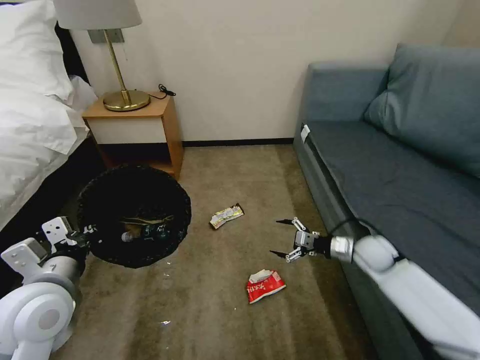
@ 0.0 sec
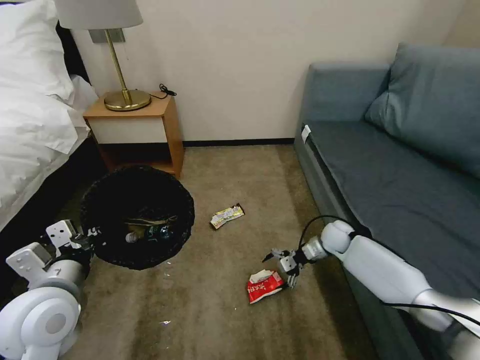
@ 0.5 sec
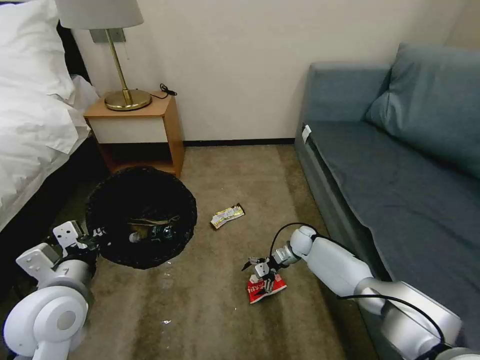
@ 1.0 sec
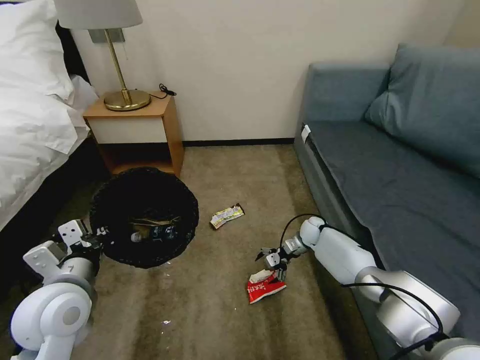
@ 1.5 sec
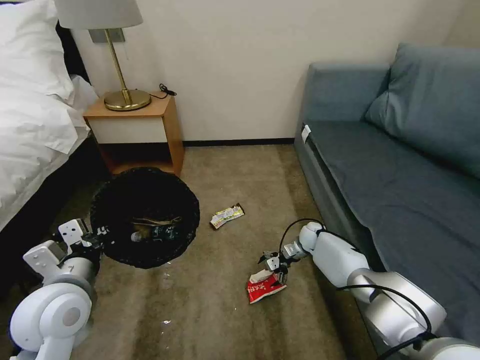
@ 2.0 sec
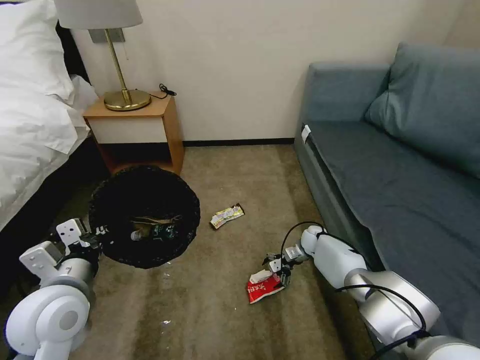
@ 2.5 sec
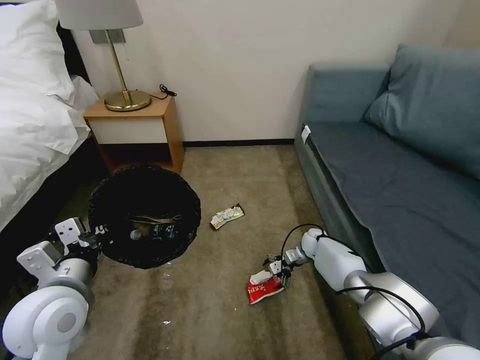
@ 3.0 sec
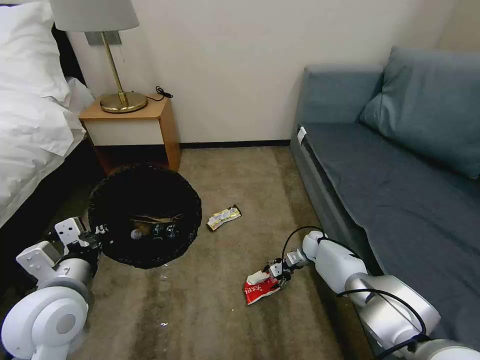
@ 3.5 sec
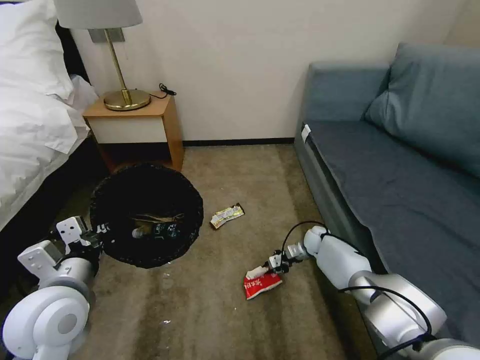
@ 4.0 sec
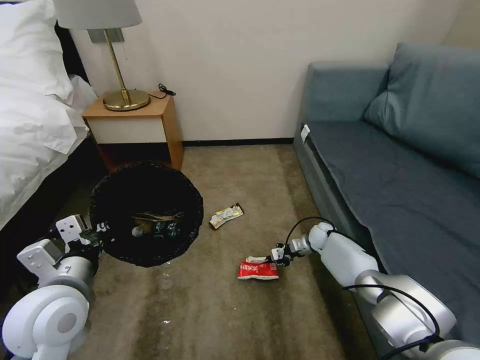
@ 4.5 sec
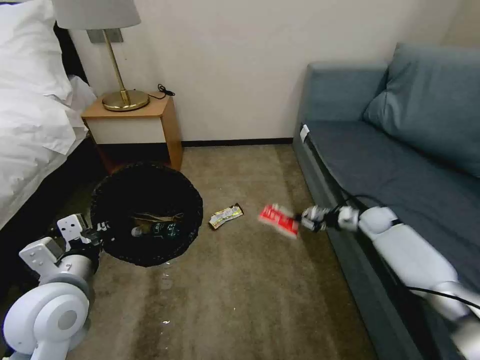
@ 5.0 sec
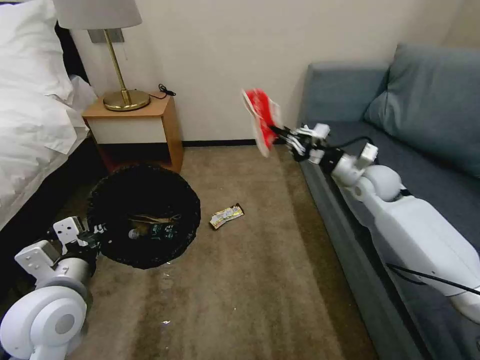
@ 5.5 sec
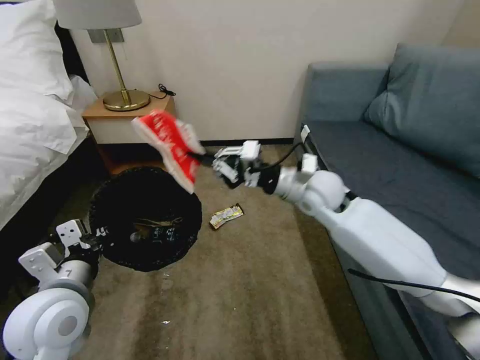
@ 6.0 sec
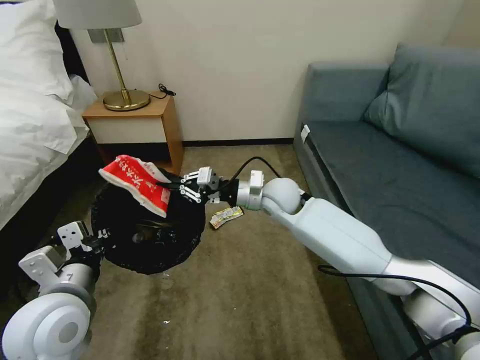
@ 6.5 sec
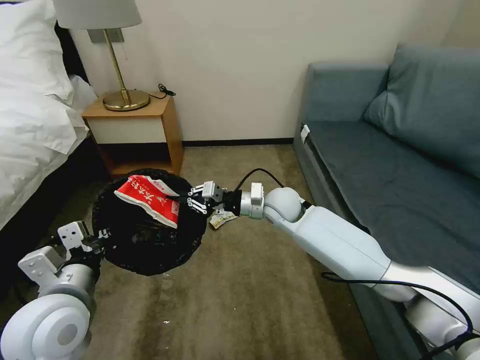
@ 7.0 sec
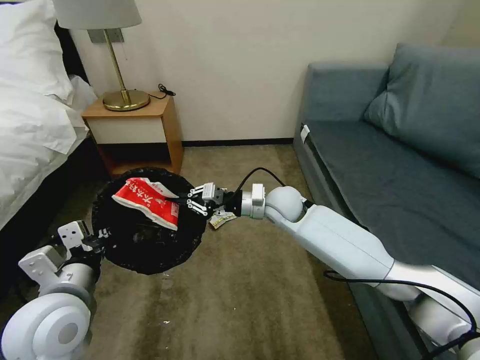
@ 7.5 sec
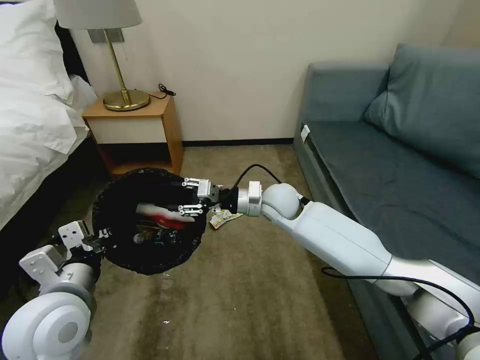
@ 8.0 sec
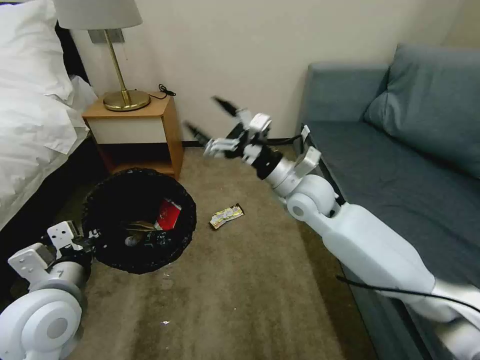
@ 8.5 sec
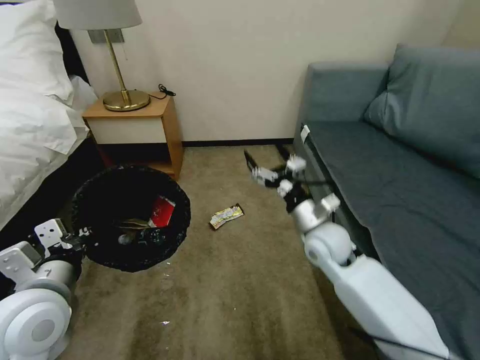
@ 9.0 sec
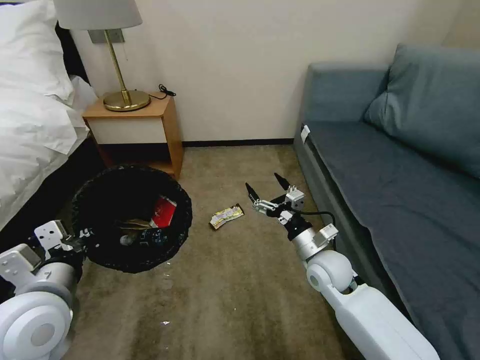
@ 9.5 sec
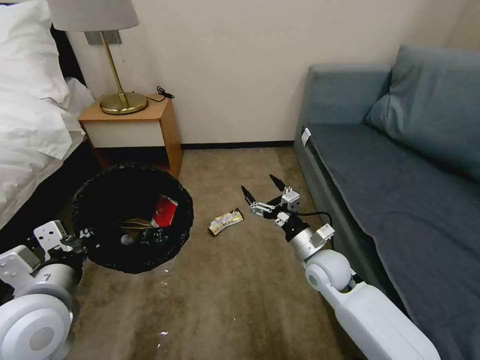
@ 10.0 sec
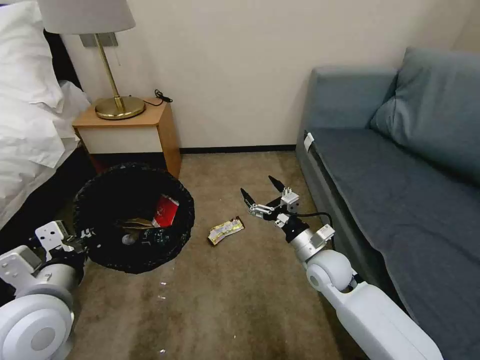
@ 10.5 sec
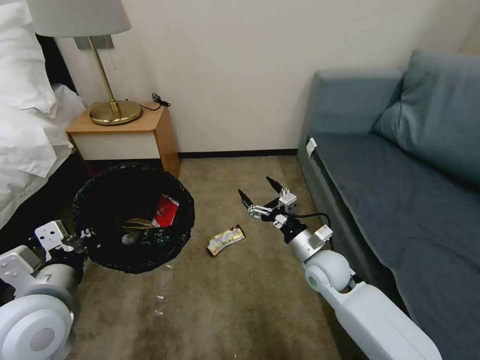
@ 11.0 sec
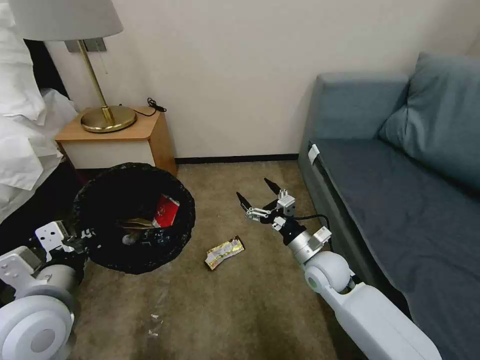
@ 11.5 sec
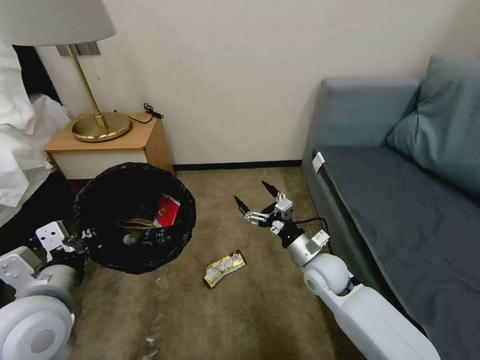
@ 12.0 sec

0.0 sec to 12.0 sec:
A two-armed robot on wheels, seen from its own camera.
Task of the whole recording: Pick up the trash bin, then pick up the garbage on the floor and place it into the trash bin.
0.0 sec to 2.0 sec: The right gripper travels forward, downward and to the left by about 20 cm.
2.0 sec to 4.0 sec: The right gripper closes its fingers.
4.0 sec to 6.0 sec: The right gripper travels upward by approximately 30 cm.
6.0 sec to 8.0 sec: The right gripper moves to the left and downward, roughly 10 cm, and opens its fingers.
8.0 sec to 10.0 sec: The right gripper shifts some 20 cm backward, to the right and downward, and opens up.

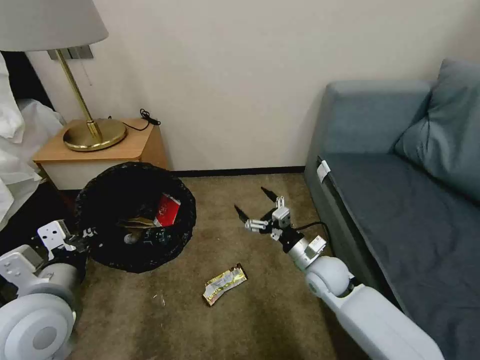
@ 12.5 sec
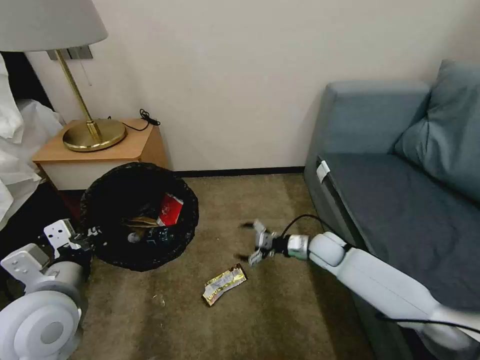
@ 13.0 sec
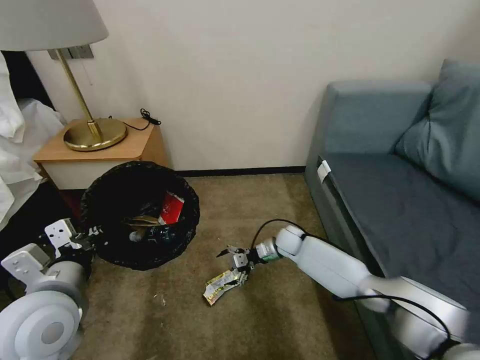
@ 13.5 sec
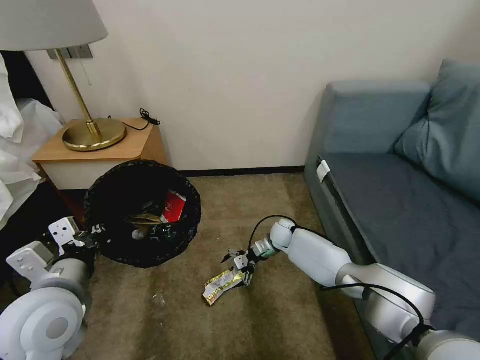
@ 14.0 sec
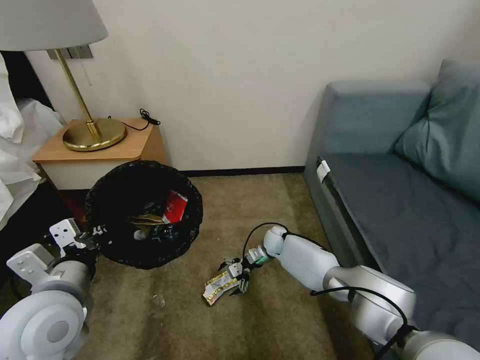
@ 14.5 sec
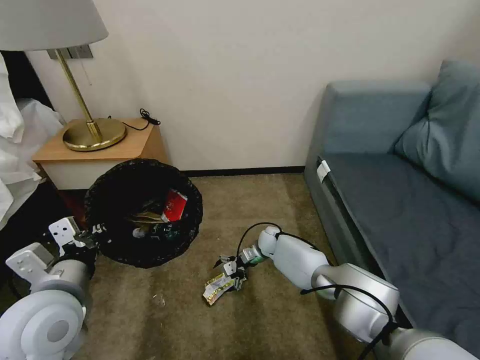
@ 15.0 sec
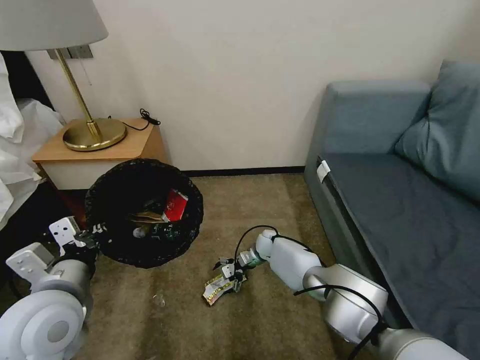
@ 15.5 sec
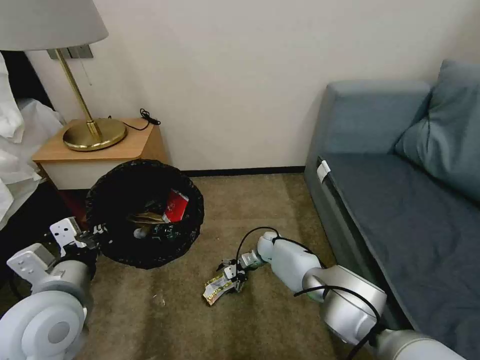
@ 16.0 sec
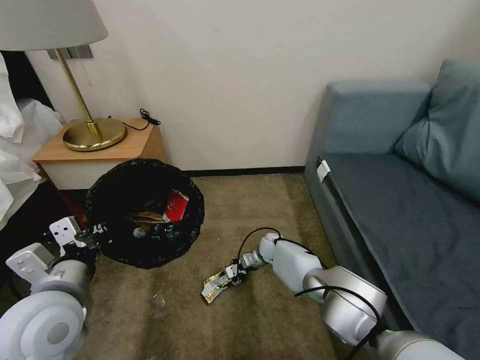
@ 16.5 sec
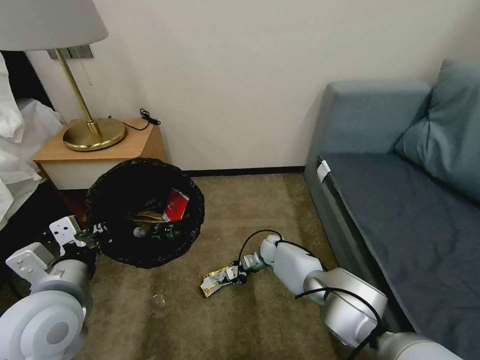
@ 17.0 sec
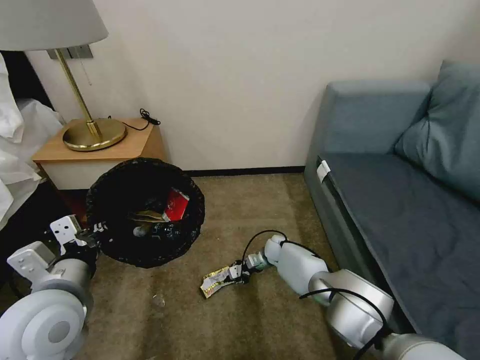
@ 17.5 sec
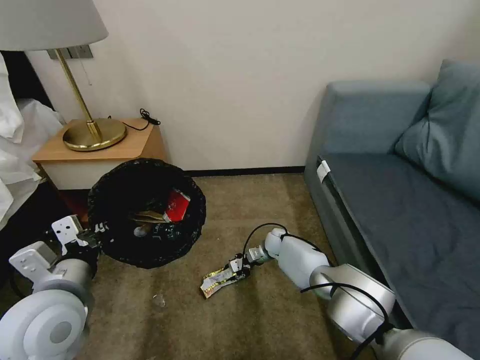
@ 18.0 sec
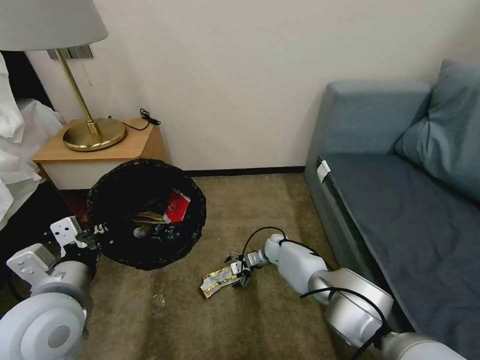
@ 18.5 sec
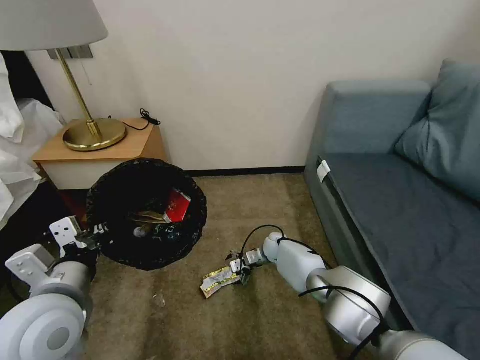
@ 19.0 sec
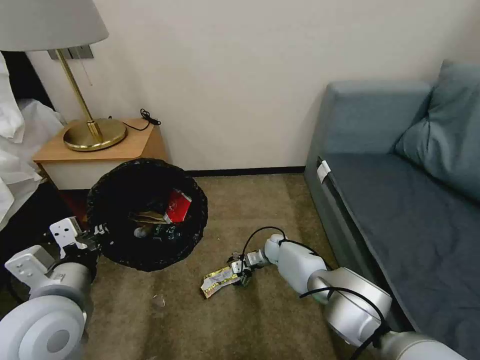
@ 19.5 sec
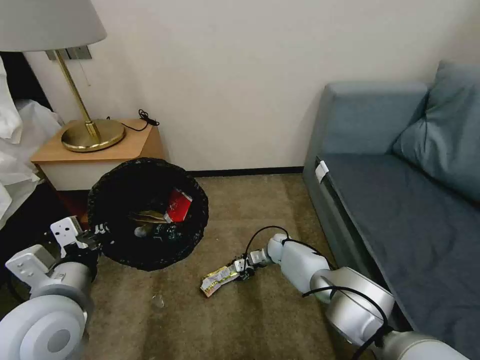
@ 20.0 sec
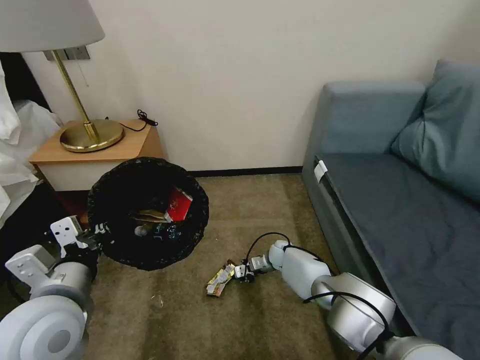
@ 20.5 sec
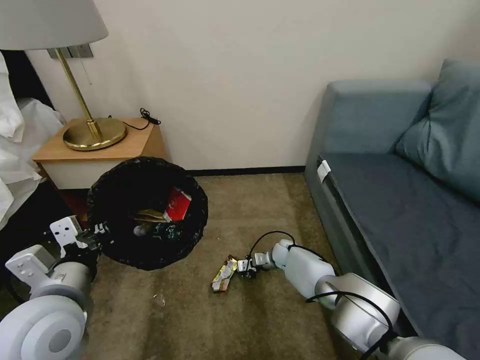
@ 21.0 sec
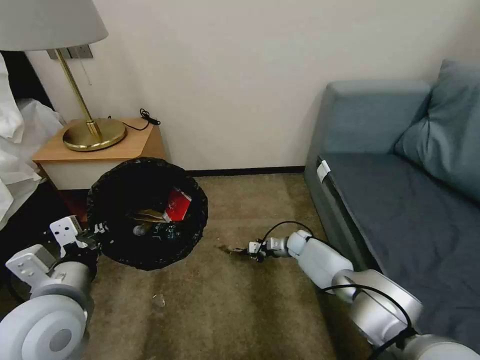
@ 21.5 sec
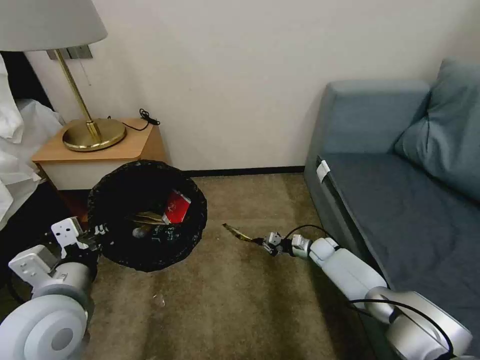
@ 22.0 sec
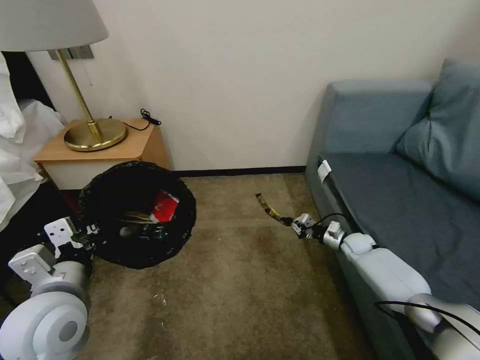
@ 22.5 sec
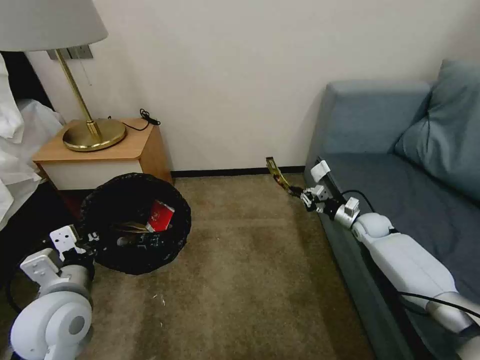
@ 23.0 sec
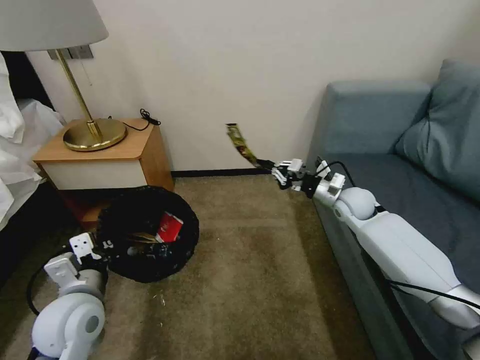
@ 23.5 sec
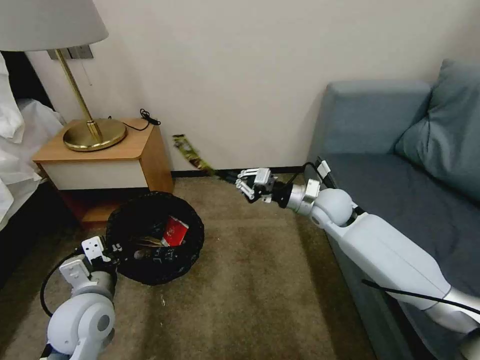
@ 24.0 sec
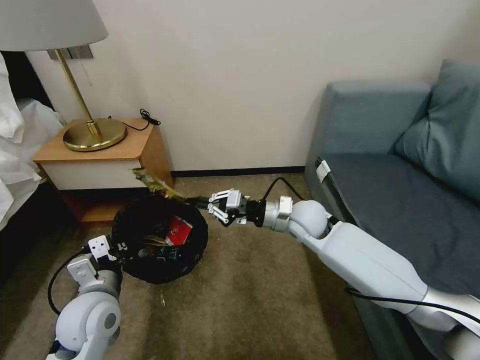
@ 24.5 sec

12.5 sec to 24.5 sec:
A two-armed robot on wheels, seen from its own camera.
Task of the whole recording: Pick up the trash bin, then pick up the garbage on the floor and place it into the trash bin.
12.5 sec to 14.5 sec: The right gripper moves forward, downward and to the left, approximately 25 cm.
14.5 sec to 16.5 sec: The right gripper closes up.
16.5 sec to 18.5 sec: The right gripper opens.
18.5 sec to 20.5 sec: The right gripper closes up.
20.5 sec to 22.5 sec: The right gripper travels to the right by approximately 25 cm.
22.5 sec to 24.5 sec: The left gripper shifts about 10 cm downward. Meanwhile the right gripper is displaced to the left and upward by approximately 30 cm.

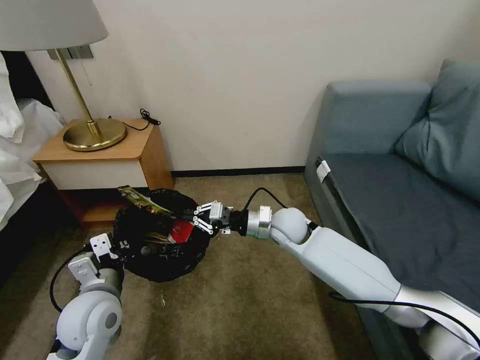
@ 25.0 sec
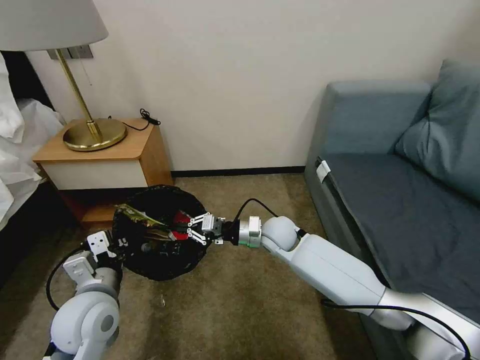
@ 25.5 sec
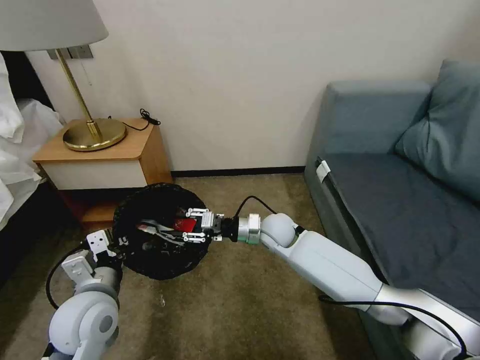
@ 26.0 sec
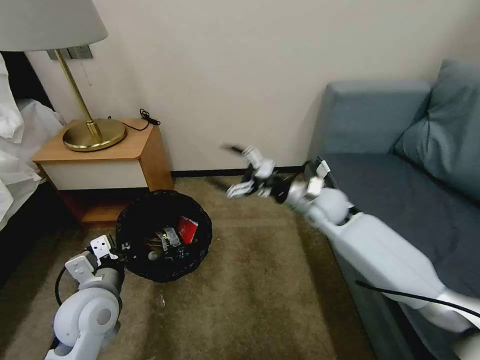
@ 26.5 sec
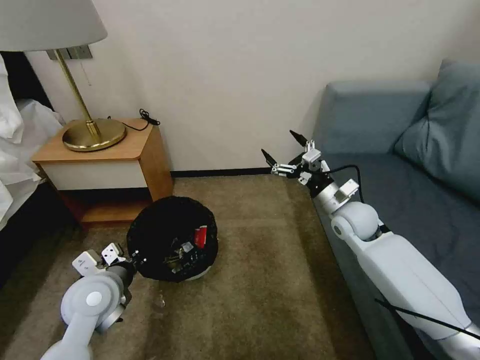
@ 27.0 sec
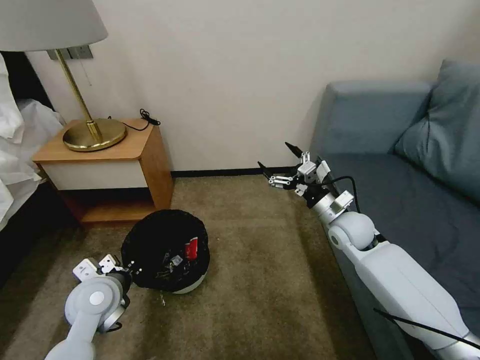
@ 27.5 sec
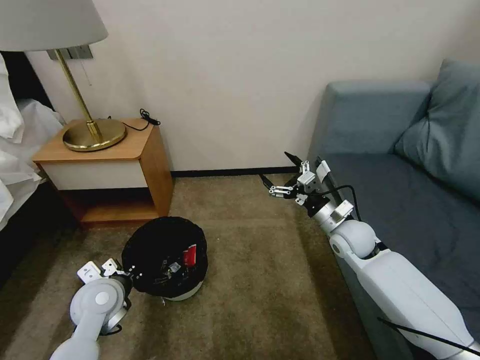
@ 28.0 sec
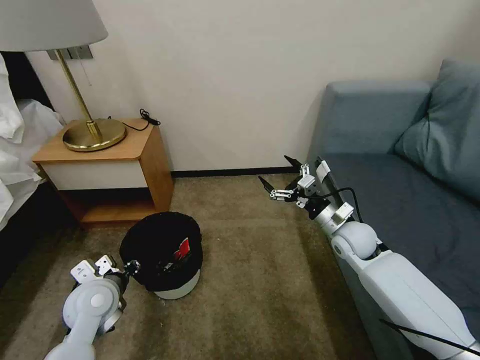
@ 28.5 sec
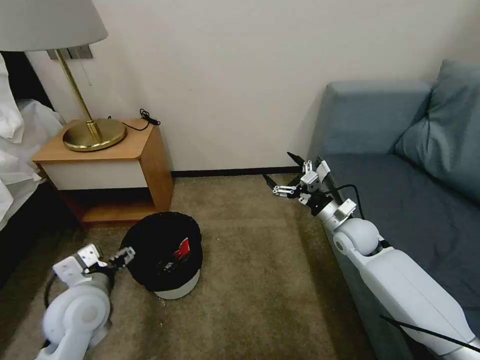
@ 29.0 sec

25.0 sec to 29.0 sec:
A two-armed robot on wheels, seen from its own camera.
Task of the whole recording: Pick up the trash bin, then pick up the garbage on the floor and place it into the trash bin.
25.0 sec to 27.0 sec: The right gripper travels to the right by roughly 15 cm, and opens.
27.0 sec to 29.0 sec: The left gripper opens up.
